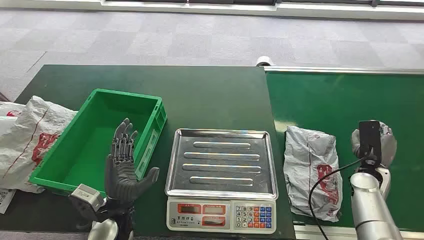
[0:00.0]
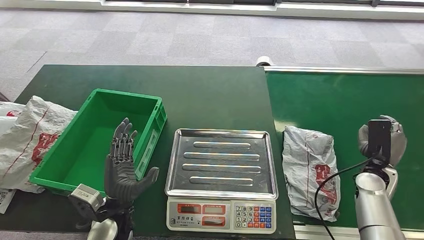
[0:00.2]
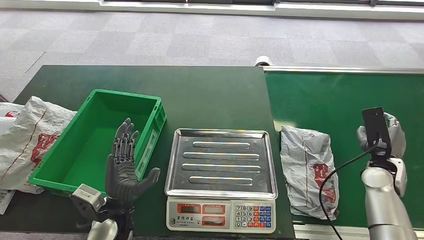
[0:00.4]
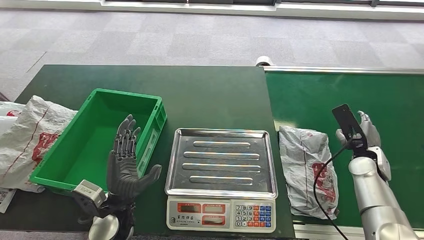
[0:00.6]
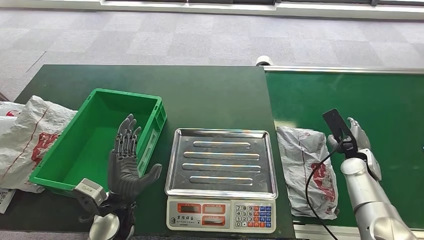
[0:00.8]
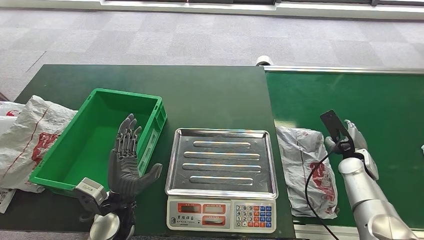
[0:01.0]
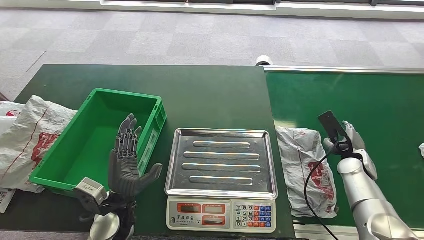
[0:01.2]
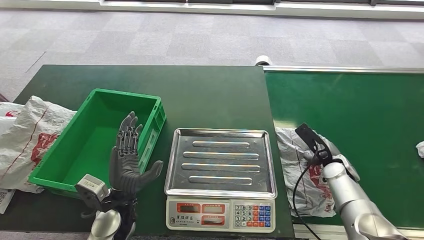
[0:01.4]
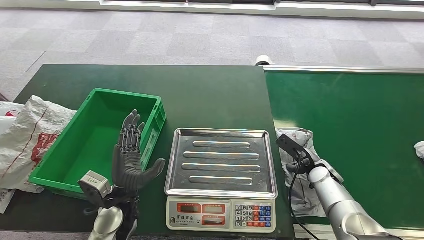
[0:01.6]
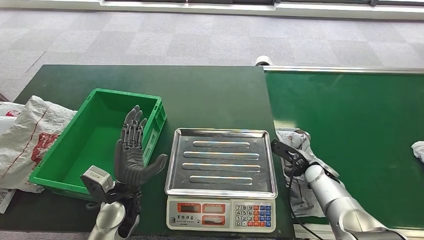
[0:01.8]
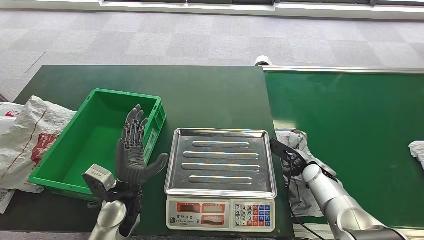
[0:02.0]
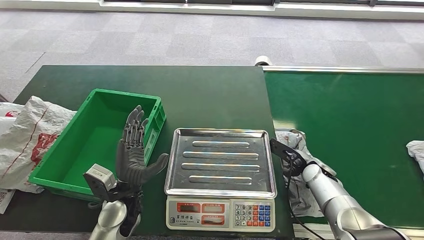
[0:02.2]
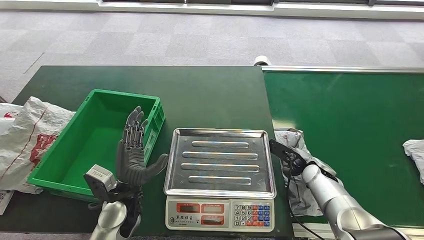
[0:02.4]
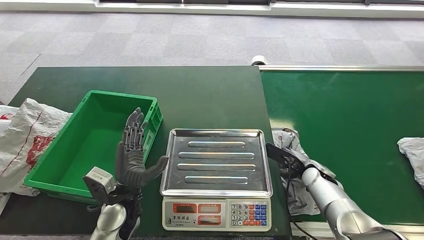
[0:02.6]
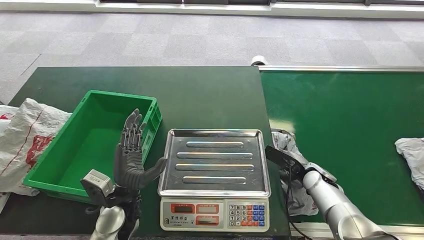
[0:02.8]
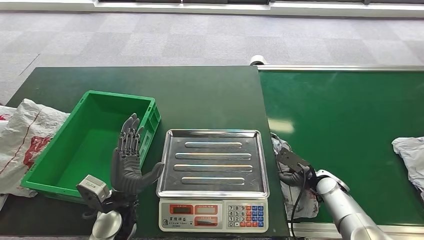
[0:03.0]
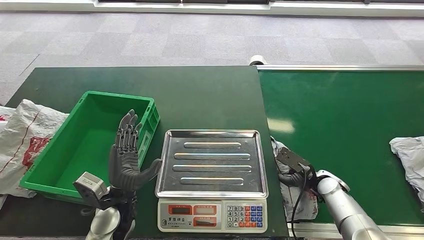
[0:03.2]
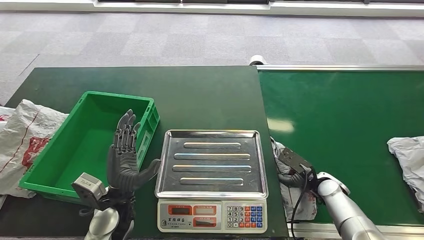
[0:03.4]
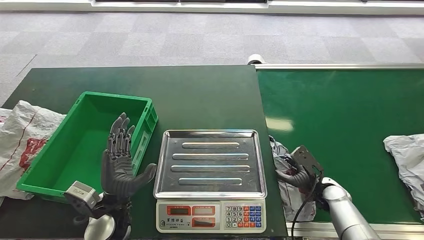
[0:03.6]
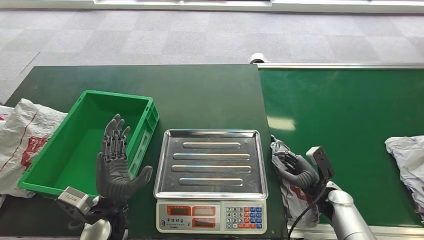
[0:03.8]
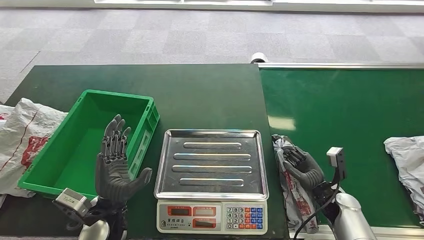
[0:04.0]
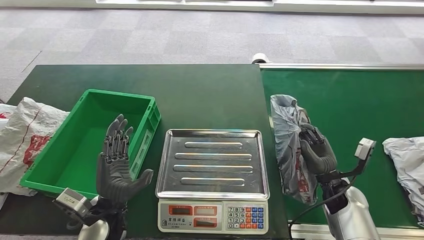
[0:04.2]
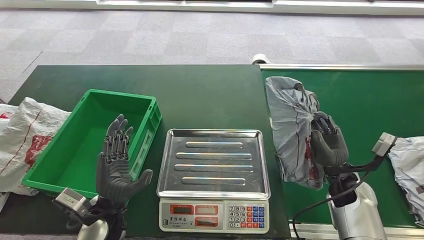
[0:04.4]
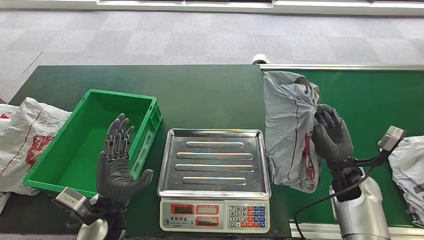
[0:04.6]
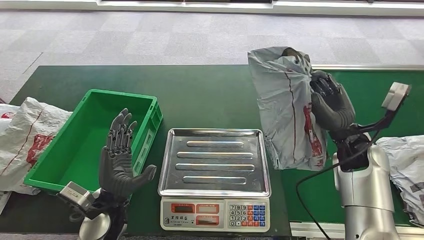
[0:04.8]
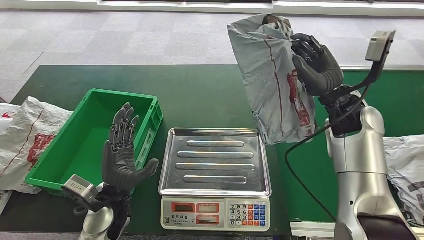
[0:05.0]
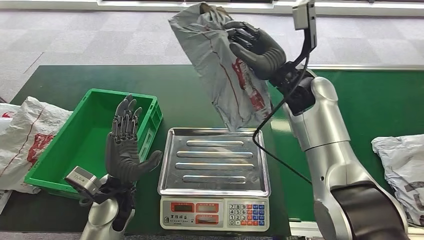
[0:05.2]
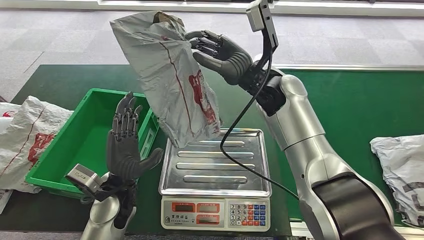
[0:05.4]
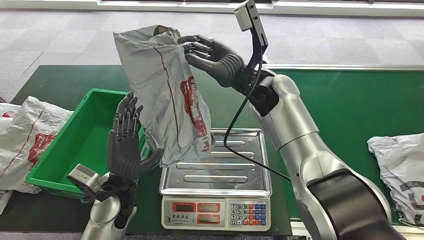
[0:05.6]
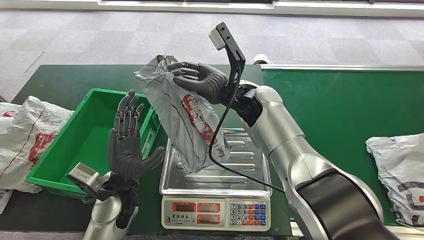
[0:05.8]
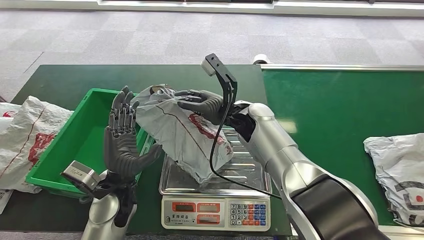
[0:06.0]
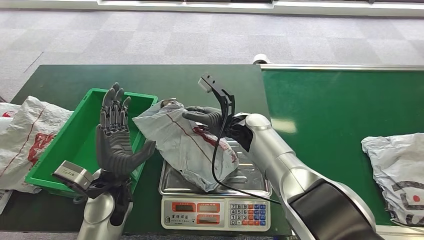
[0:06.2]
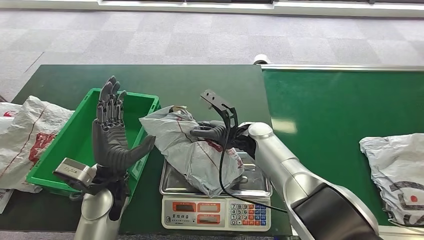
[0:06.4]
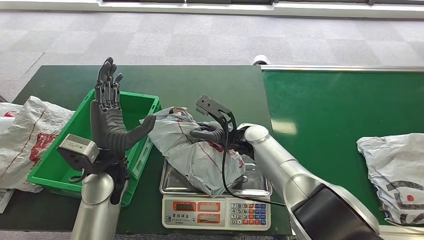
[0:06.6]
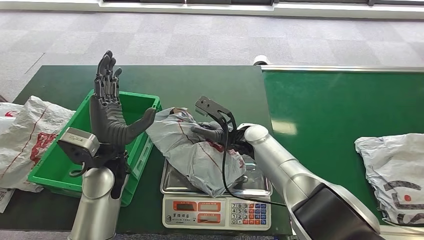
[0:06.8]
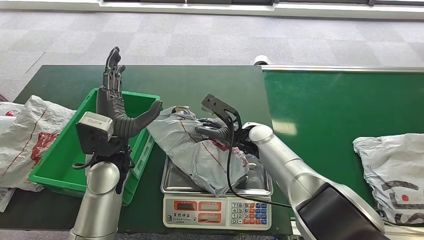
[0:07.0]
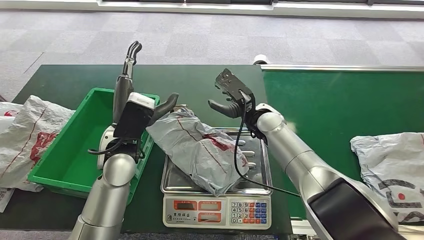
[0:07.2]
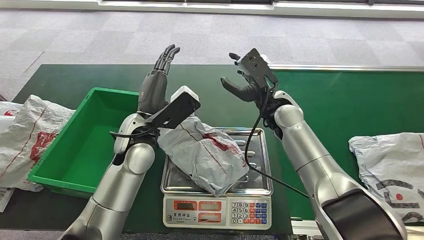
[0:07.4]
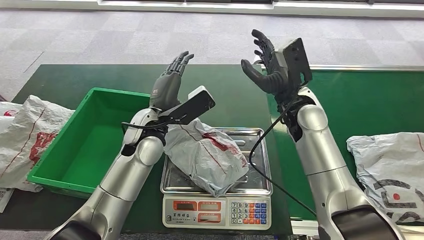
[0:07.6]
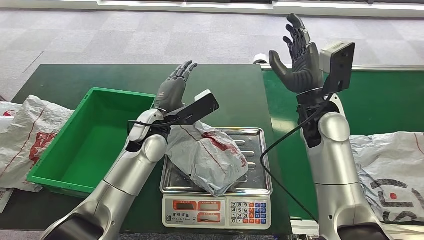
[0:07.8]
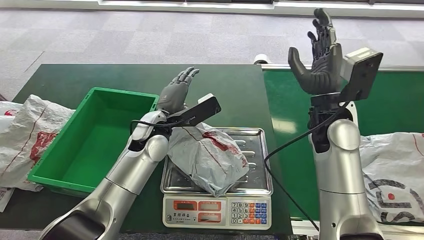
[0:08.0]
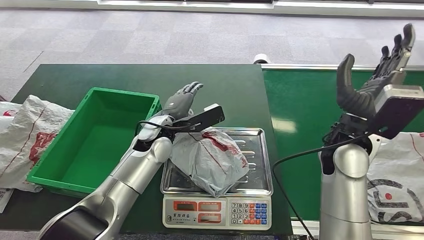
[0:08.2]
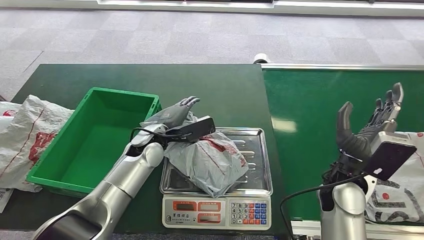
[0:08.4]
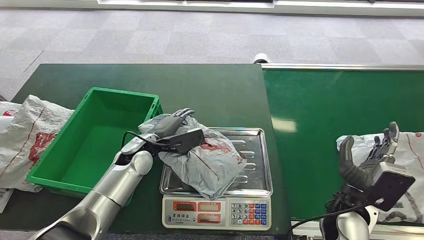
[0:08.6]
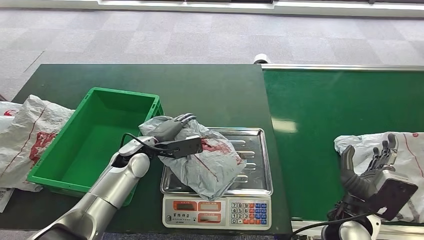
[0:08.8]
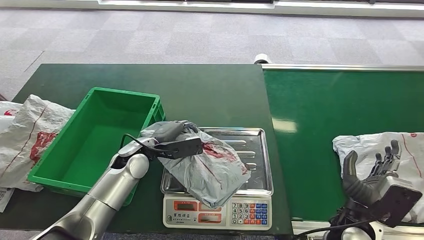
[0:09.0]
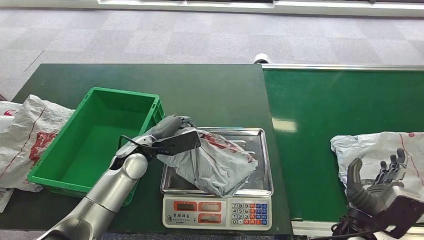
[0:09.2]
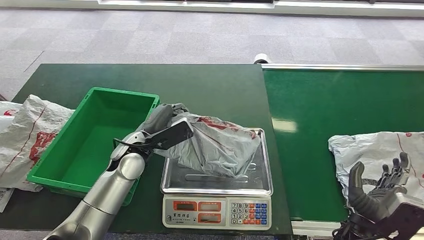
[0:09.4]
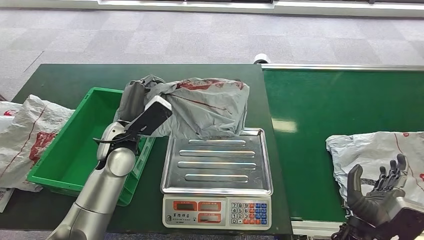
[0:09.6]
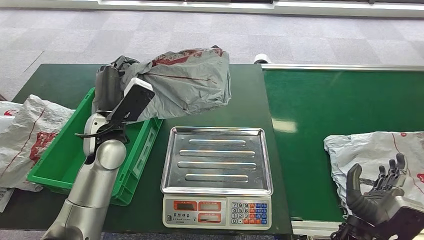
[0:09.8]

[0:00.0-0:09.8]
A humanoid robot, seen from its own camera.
Step, 0:00.0 to 0:05.0: Pick up the package from the conveyor belt.
Step, 0:05.4 to 0:08.0: Place the package onto the inbound machine.

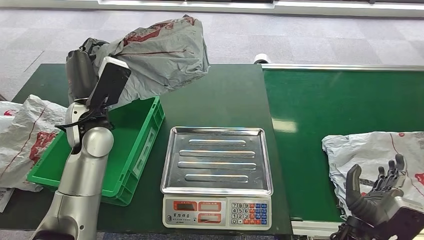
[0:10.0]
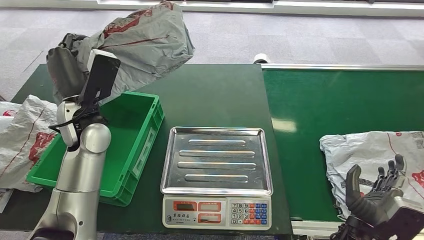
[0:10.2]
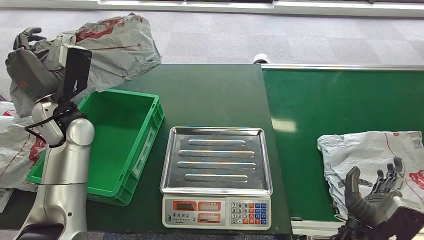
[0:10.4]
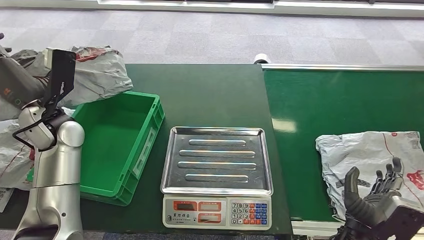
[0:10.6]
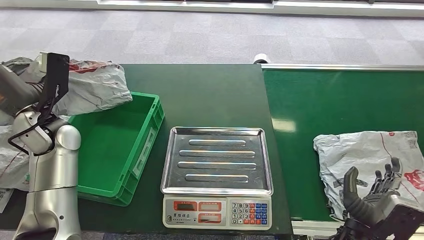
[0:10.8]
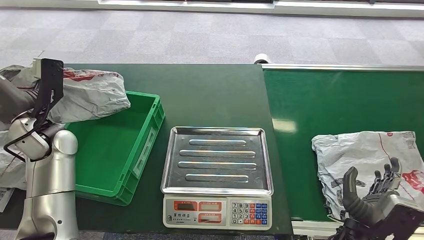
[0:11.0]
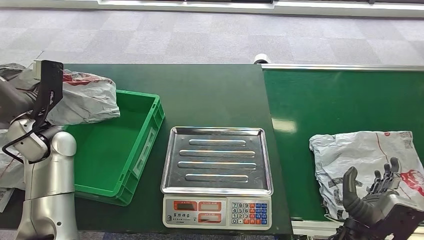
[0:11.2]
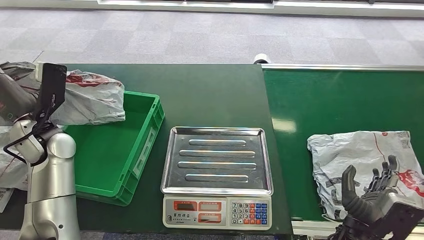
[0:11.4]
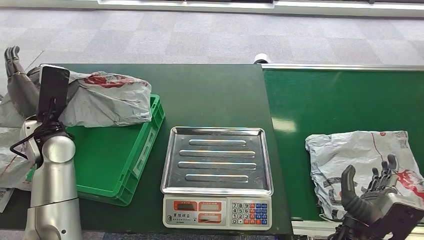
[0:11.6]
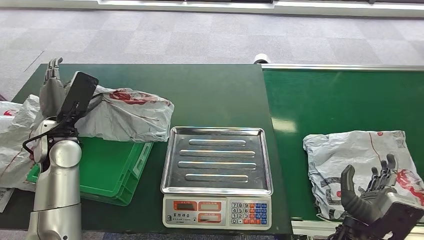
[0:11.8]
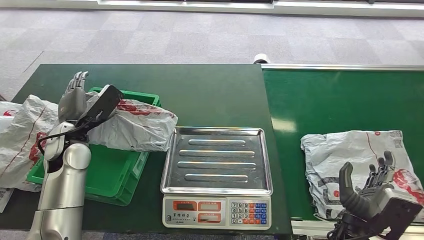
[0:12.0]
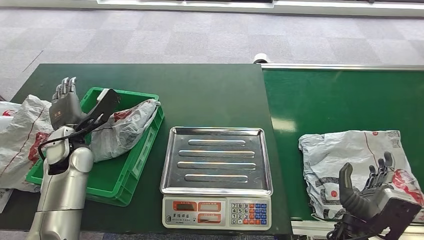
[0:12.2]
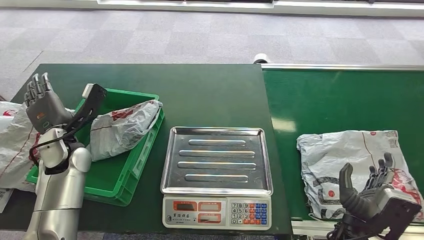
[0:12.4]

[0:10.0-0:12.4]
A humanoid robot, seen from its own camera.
Step, 0:10.2 to 0:12.4: Place the package into the parcel locker.

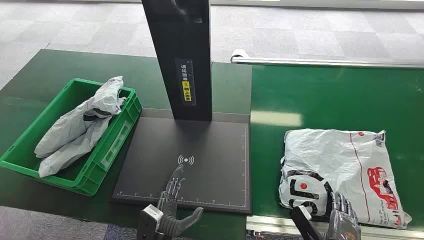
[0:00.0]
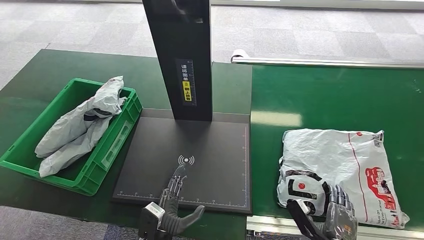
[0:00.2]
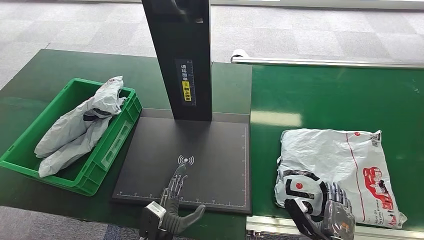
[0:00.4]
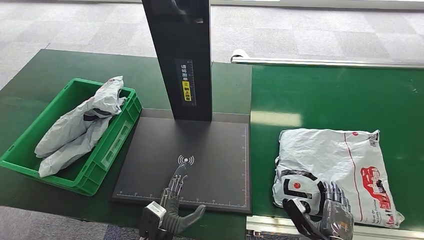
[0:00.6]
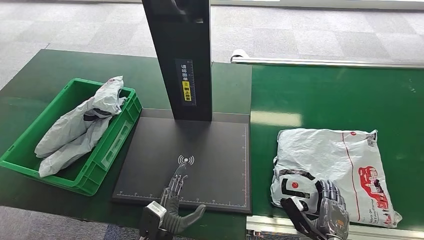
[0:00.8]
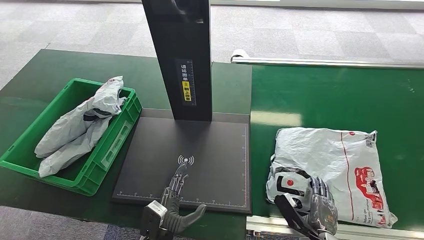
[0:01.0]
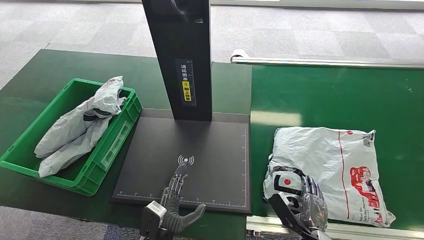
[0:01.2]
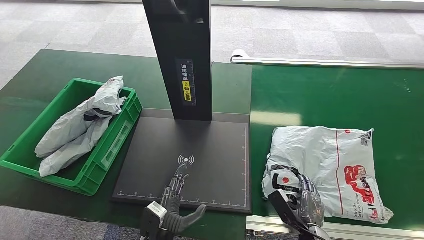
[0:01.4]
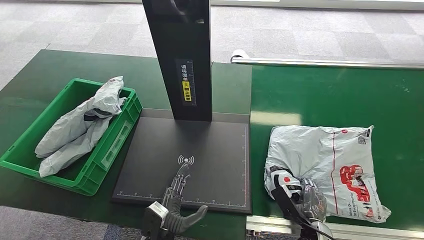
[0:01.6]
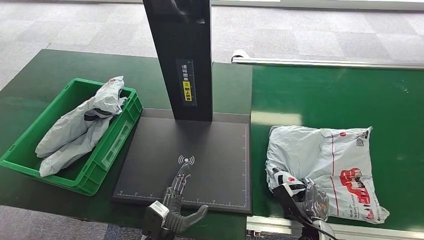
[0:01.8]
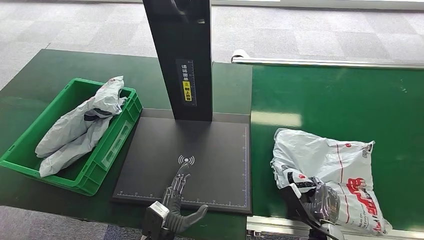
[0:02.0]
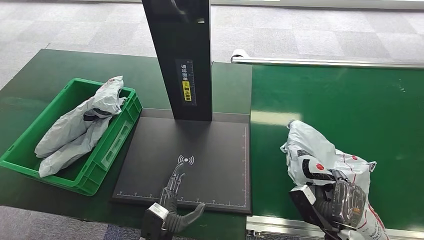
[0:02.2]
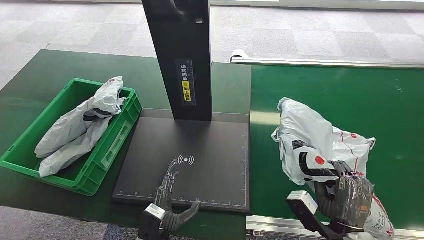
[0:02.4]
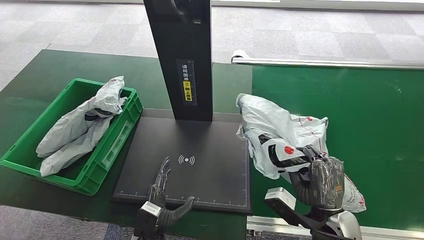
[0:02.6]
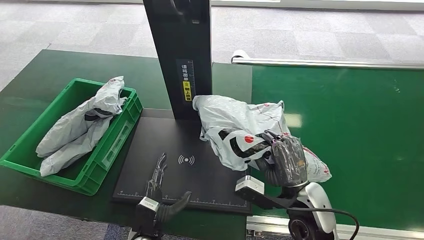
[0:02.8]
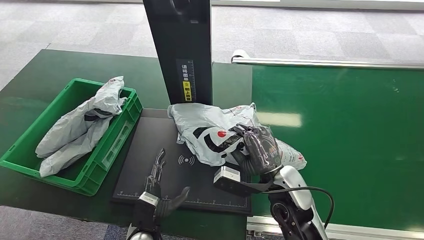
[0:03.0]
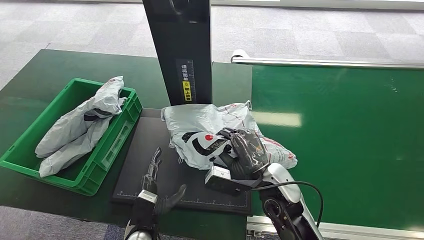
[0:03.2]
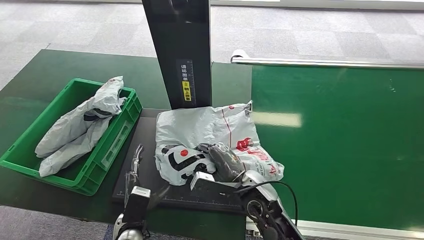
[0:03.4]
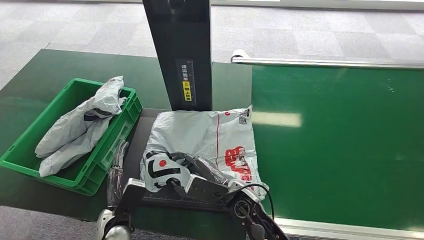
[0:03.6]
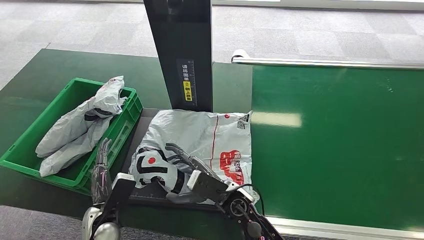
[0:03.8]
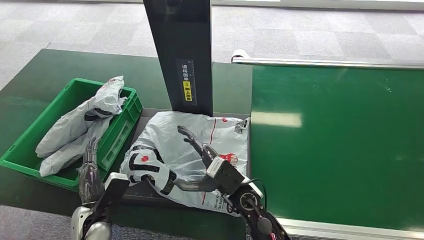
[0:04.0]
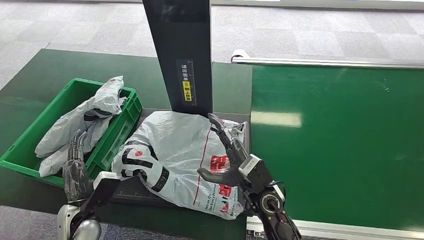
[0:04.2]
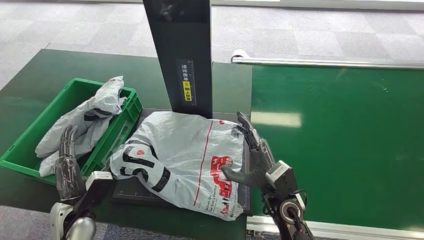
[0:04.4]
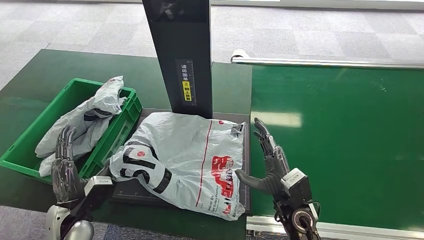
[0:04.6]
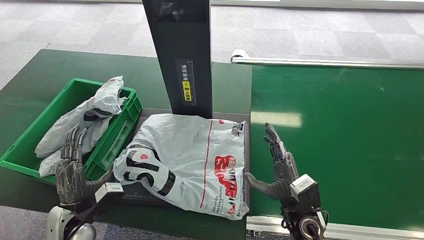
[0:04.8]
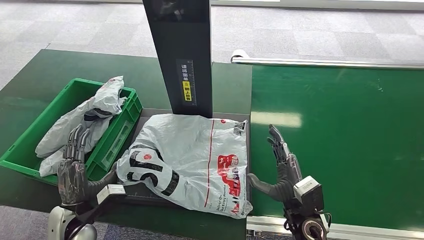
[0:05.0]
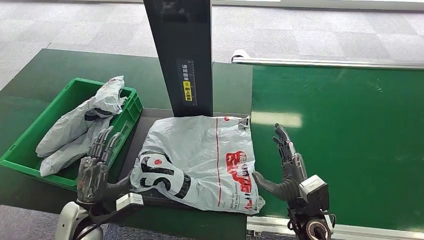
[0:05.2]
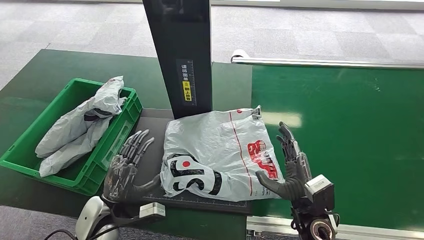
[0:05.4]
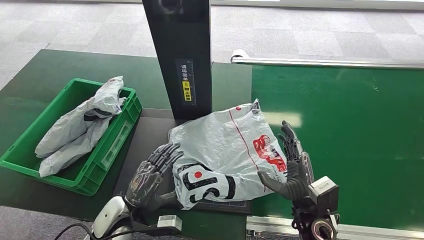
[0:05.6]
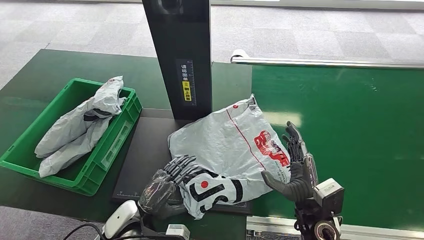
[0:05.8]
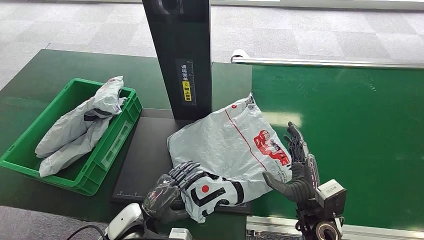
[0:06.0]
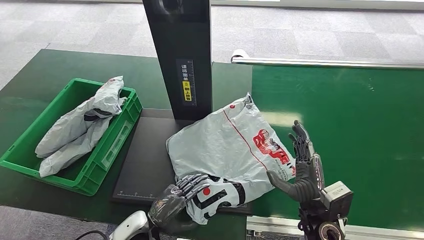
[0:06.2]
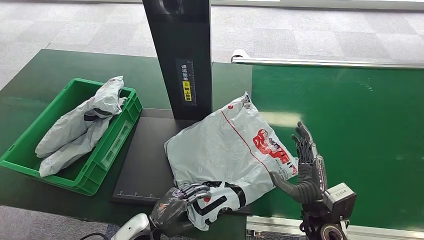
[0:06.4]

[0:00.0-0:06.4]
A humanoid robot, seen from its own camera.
Step, 0:00.0 to 0:02.8: Pick up the package from the conveyor belt.
Step, 0:03.0 to 0:04.0: Place the package onto the inbound machine.
0:03.2 to 0:04.8: The left hand heads to the left and upward, covering roughly 15 cm. Meanwhile the right hand moves to the right and downward, about 10 cm.
0:04.8 to 0:06.4: The left hand goes roughly 15 cm to the right and downward.
